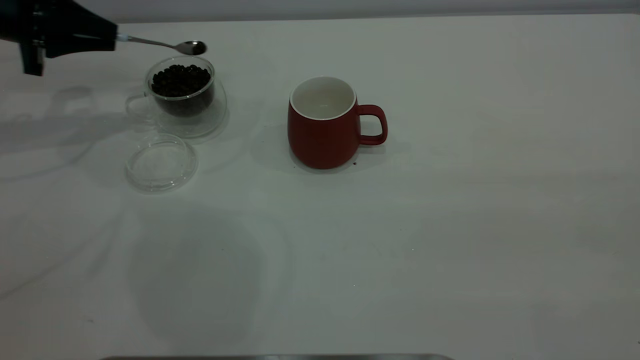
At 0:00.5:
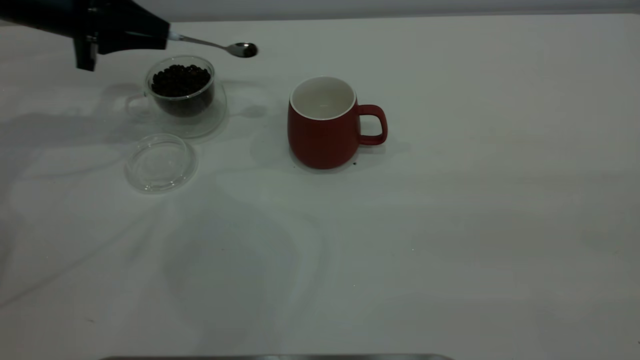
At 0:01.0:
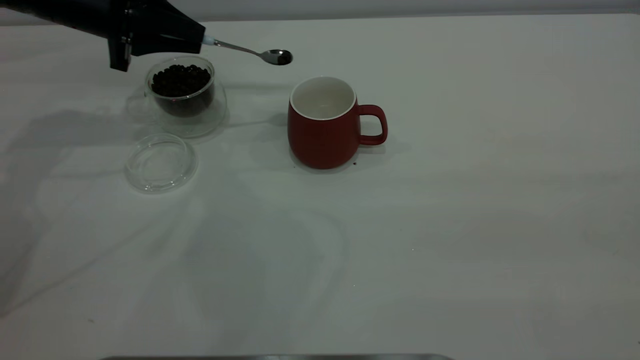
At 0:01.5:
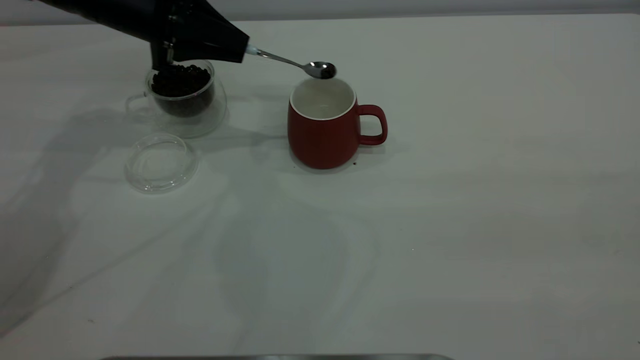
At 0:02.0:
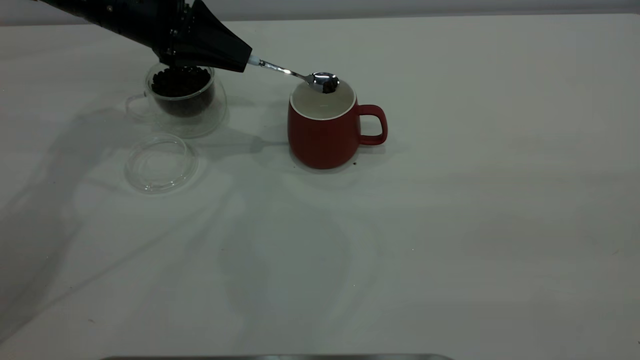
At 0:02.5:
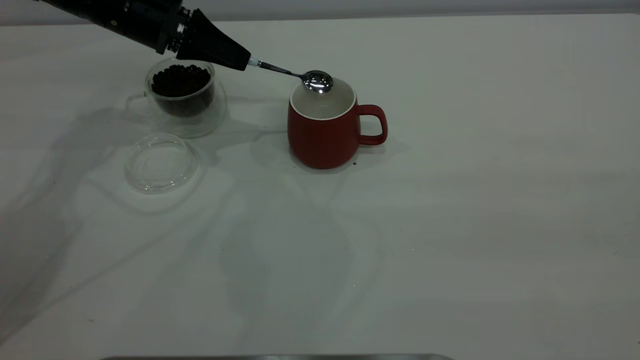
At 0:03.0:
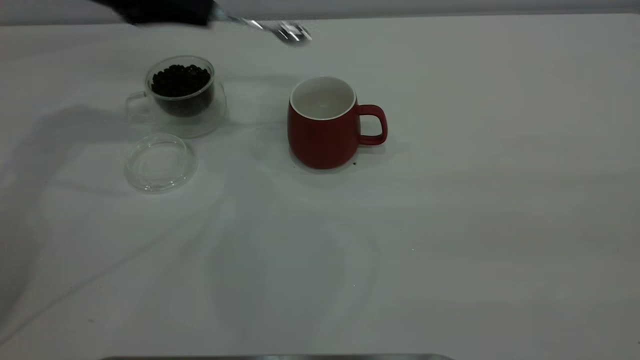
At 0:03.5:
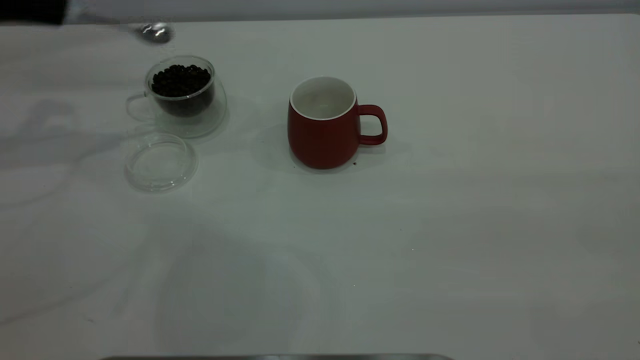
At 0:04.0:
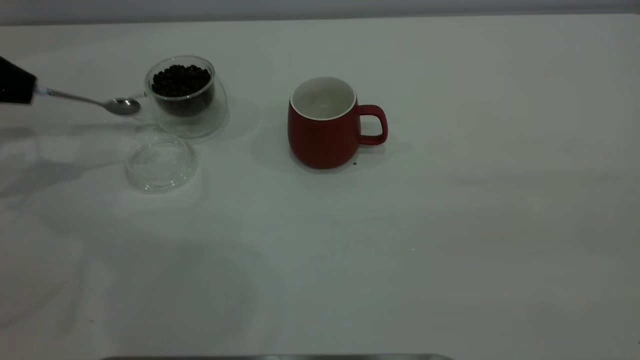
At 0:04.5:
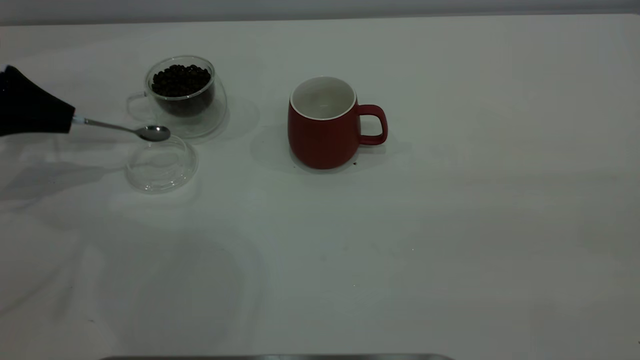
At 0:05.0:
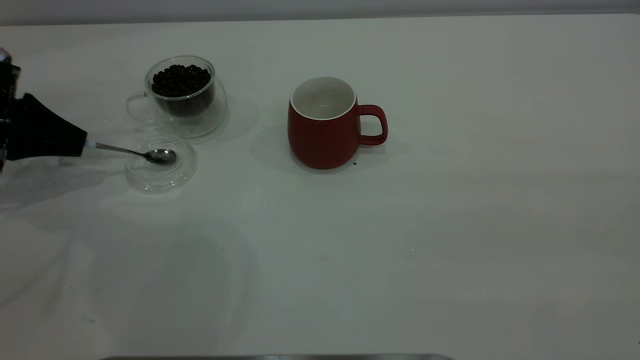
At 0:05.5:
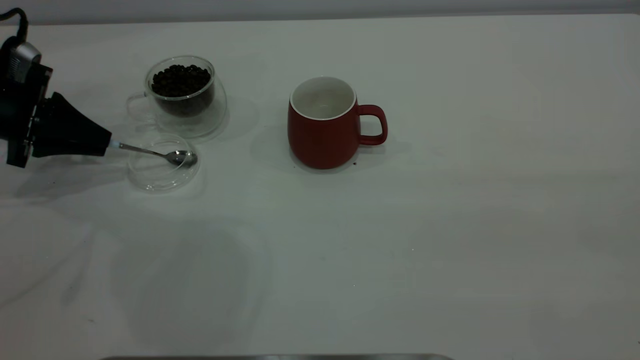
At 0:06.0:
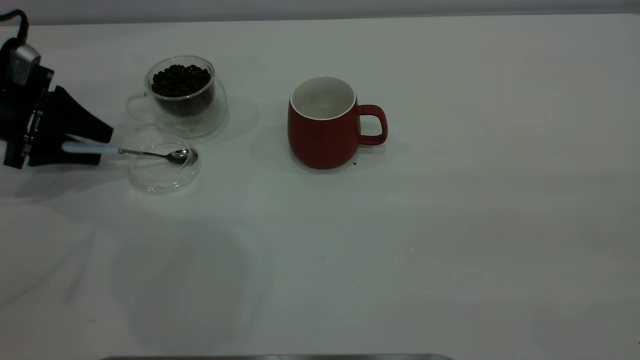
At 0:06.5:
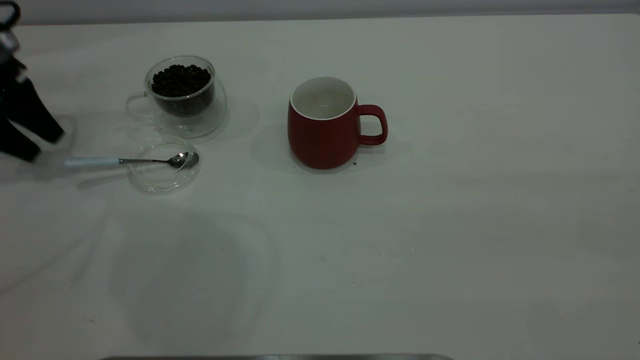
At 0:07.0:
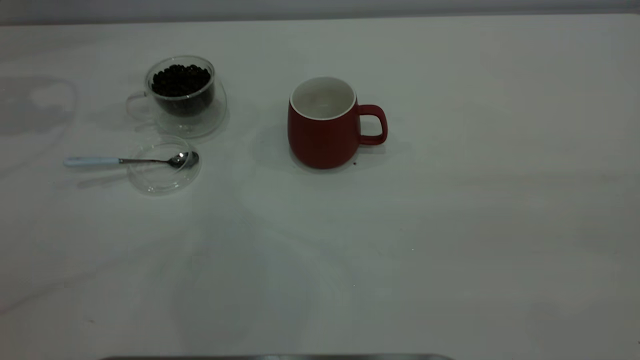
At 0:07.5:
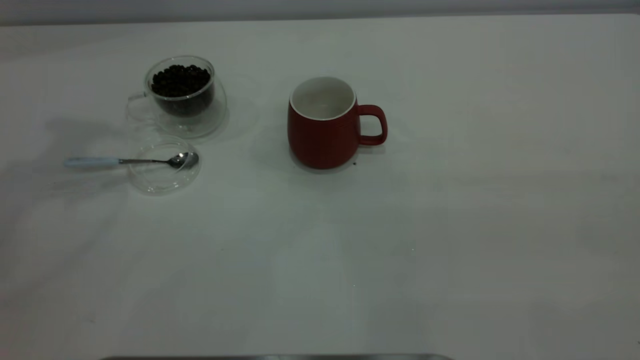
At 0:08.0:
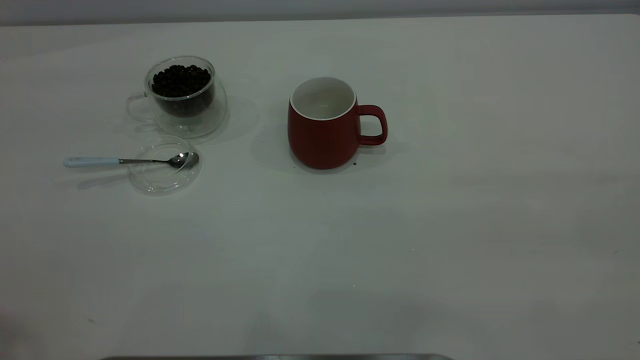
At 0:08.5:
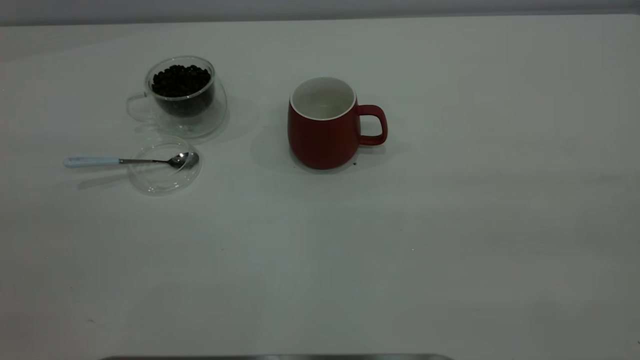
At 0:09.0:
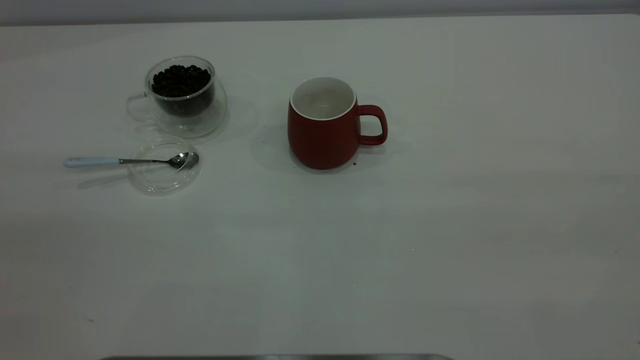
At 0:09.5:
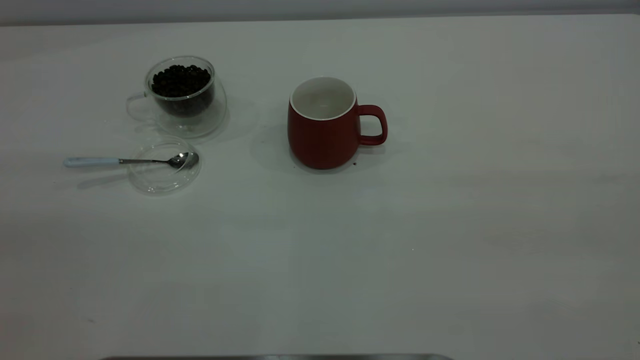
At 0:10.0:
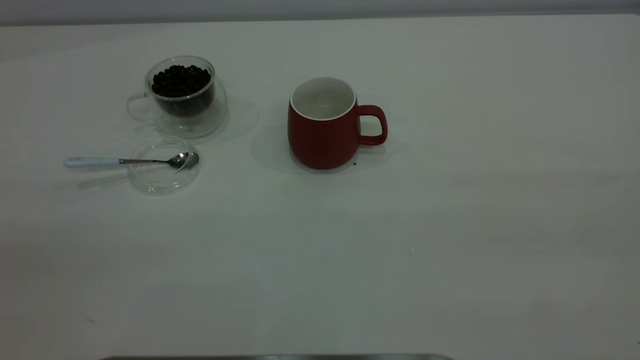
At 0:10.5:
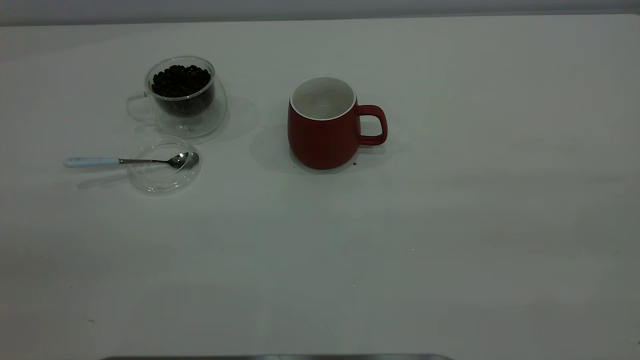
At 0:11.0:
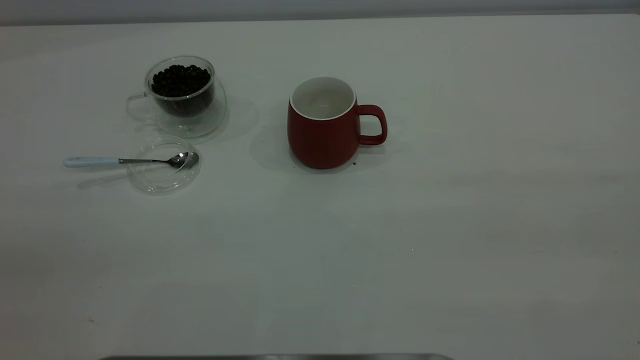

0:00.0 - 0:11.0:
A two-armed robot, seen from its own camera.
Task of the whole recording: the right gripper place the red cup in the center of the table, the left gripper take the blue spoon from the cup lid and scoop out the coffee beans from the coffee cup and put them into the red cup, the left gripper put the spoon back into the cup lid.
Step, 0:00.0 - 0:02.5: Scoop a spoonful of beans into the cup.
Step, 0:03.0 - 0:06.0: Place the spoon back in its original place.
0:00.0 - 0:02.0: The left gripper moves to the right, some 15 cm.
0:02.0 - 0:03.5: The left gripper moves to the left, about 20 cm.
0:03.5 - 0:05.5: The left gripper heads downward, covering some 15 cm.
0:05.5 - 0:07.5: The left gripper moves upward, approximately 35 cm, and opens.

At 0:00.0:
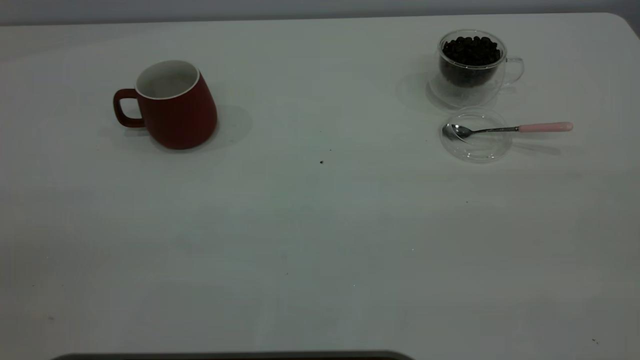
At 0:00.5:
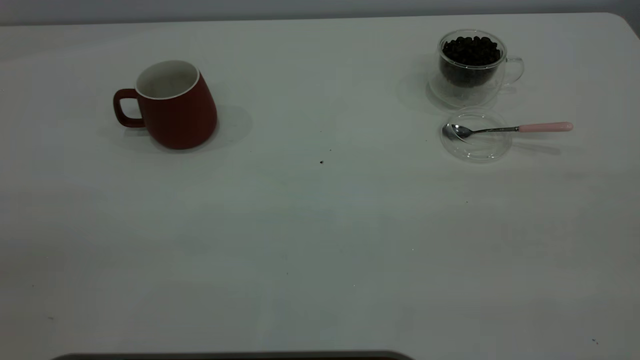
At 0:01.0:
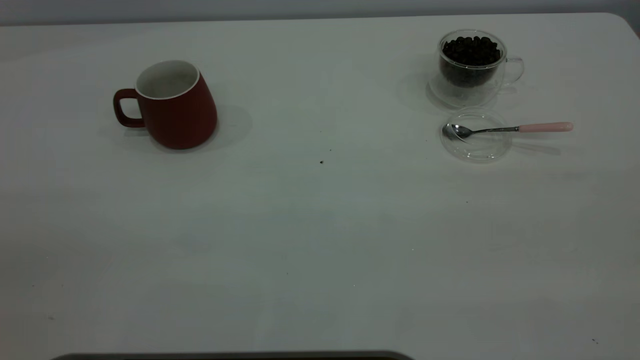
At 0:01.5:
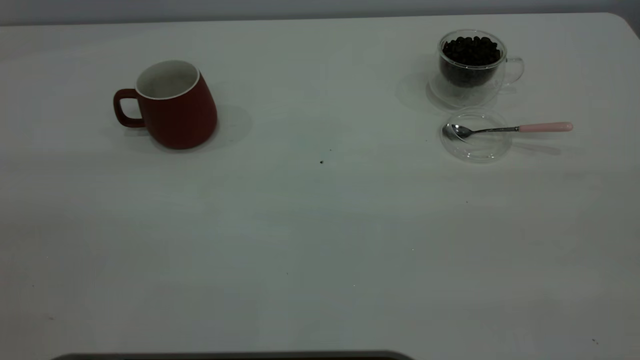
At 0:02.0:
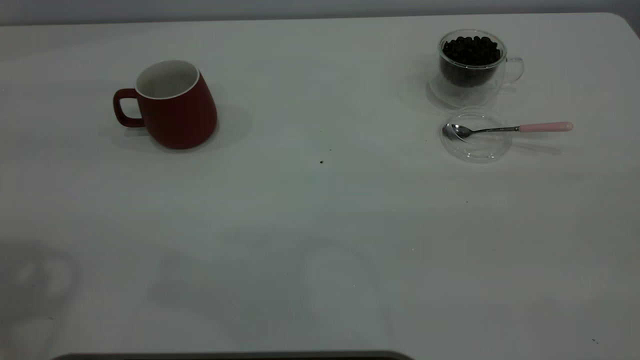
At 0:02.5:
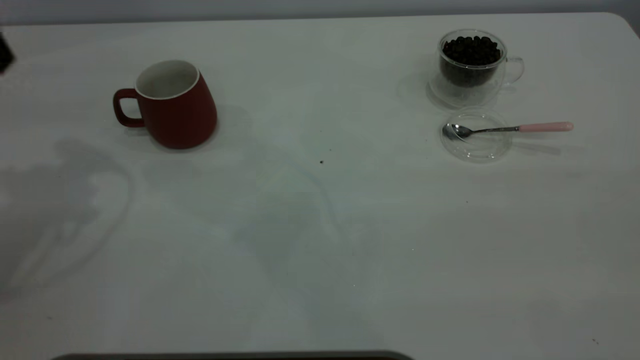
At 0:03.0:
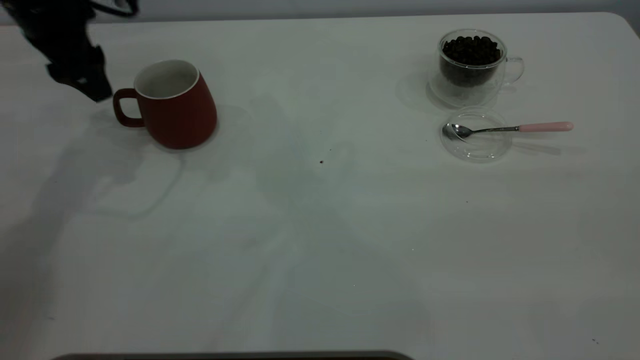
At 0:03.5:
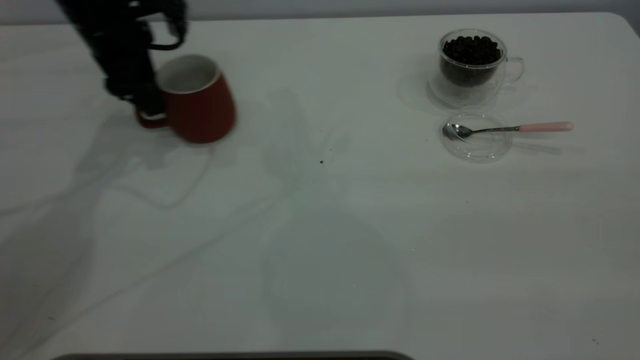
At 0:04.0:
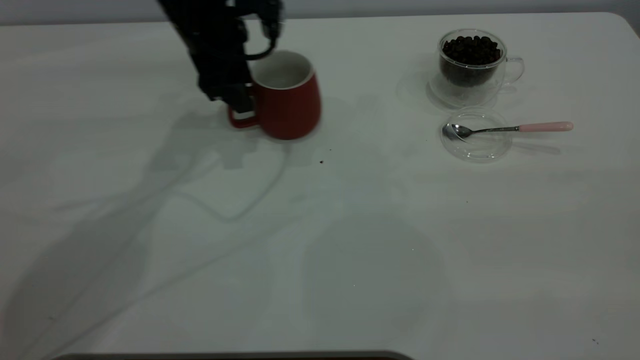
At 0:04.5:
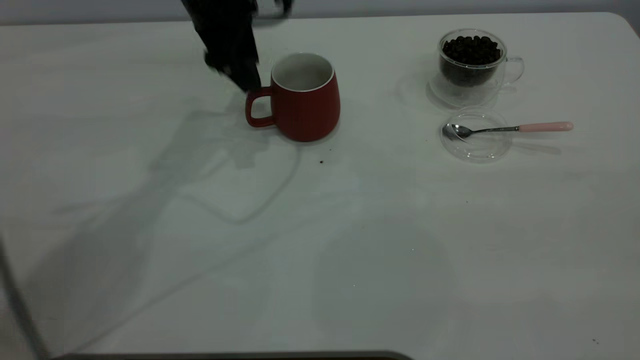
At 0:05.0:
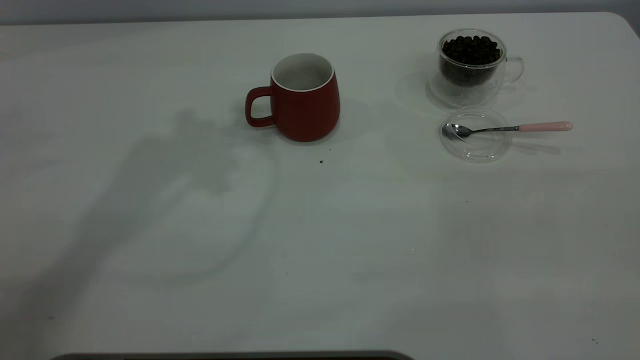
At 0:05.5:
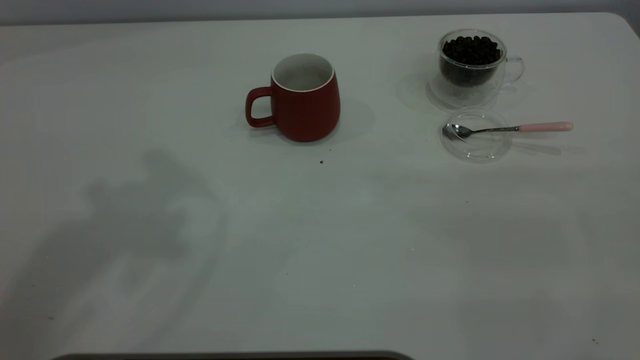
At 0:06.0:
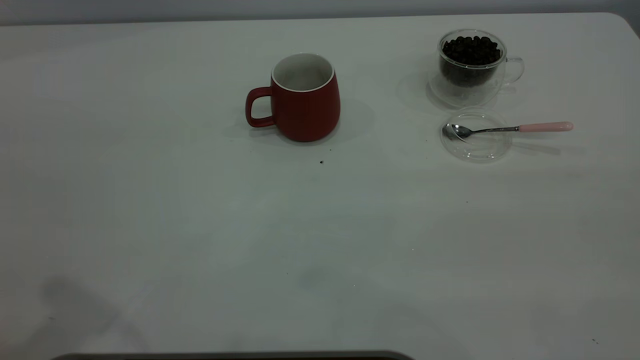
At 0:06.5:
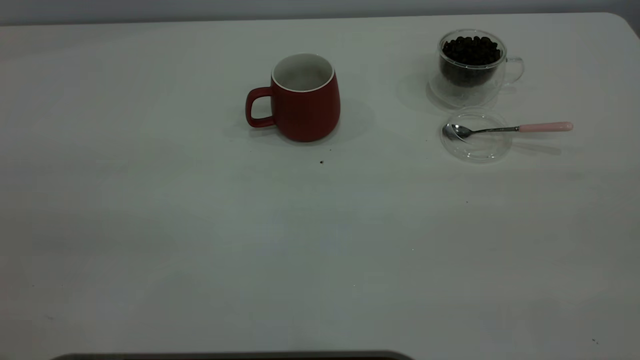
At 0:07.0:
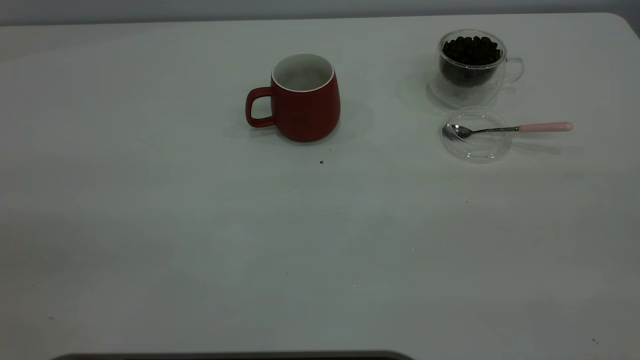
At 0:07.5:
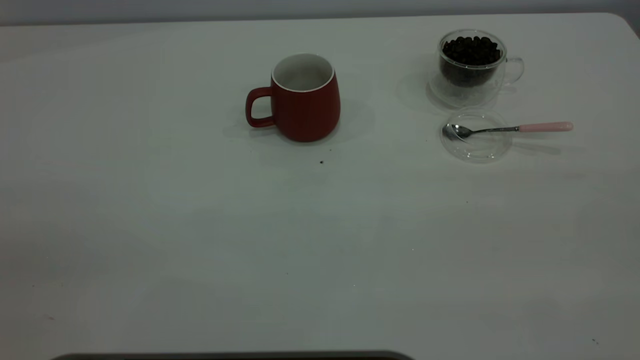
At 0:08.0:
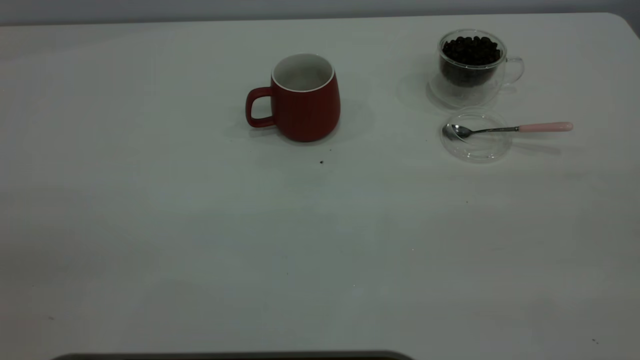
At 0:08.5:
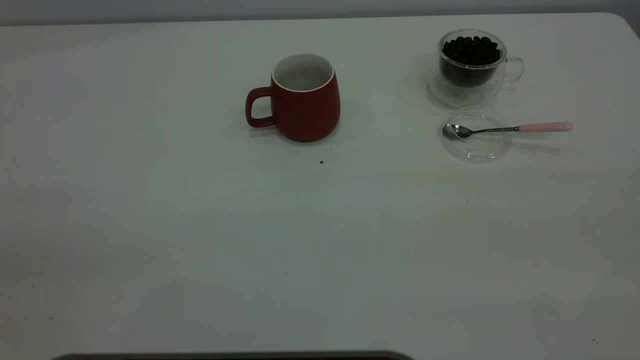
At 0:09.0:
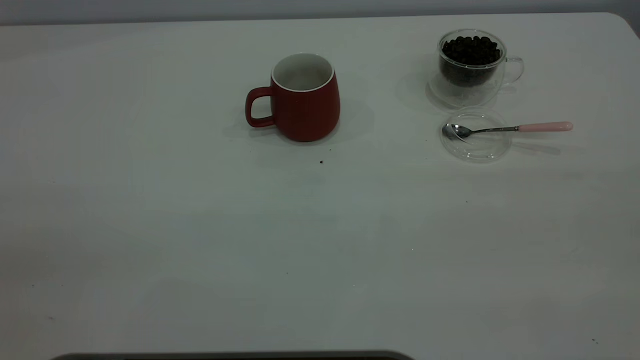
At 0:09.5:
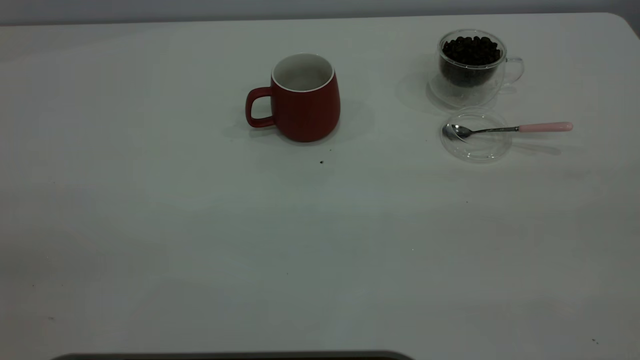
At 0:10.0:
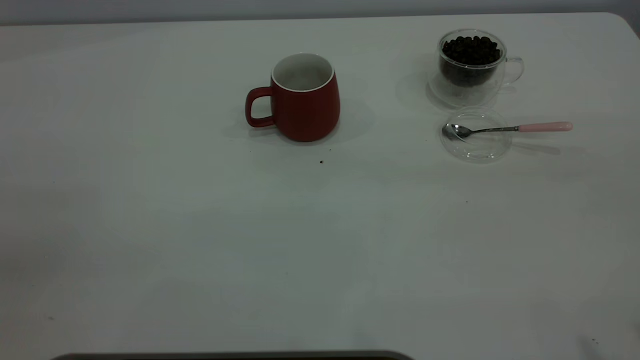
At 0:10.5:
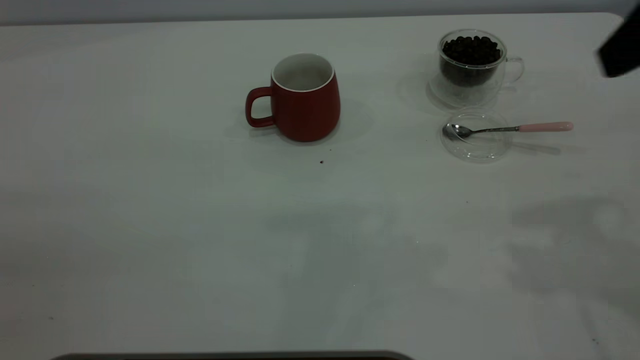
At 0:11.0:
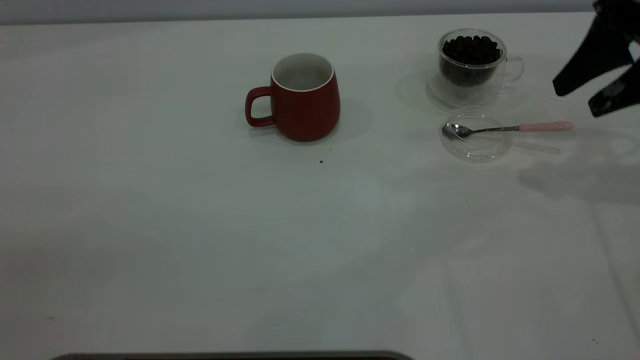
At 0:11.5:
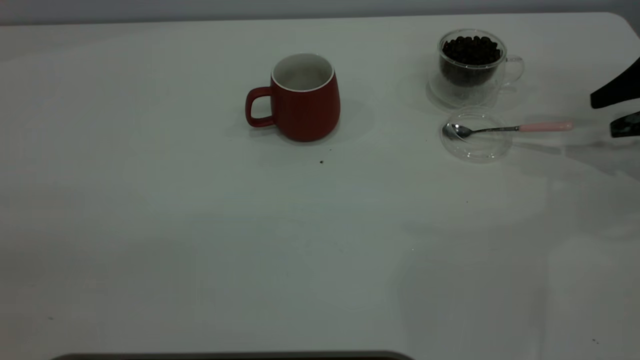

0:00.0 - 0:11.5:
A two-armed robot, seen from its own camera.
Task of the whole recording: the left gripper place the red cup in the center of the table, the right gripper take the pink spoon from the cup lid and scoop out the coffee beans from the coffee cup and put them into the red cup, the right gripper put the spoon back into the cup lid.
Step, 0:00.0 - 0:04.5: Move the cup to the center of view.
0:02.0 - 0:04.0: The left gripper is displaced forward, downward and to the right by about 35 cm.
0:04.0 - 0:06.0: The left gripper shifts approximately 40 cm backward and upward.
0:09.5 - 0:11.5: The right gripper is displaced forward and downward by roughly 50 cm.
